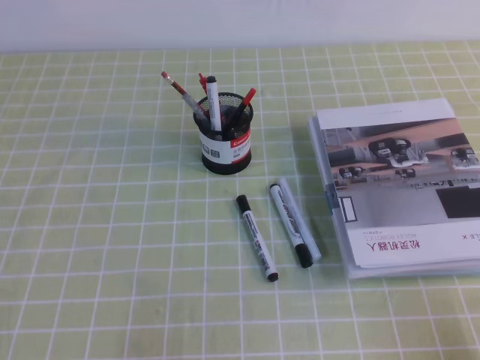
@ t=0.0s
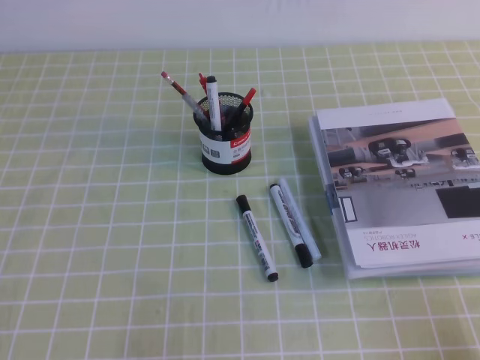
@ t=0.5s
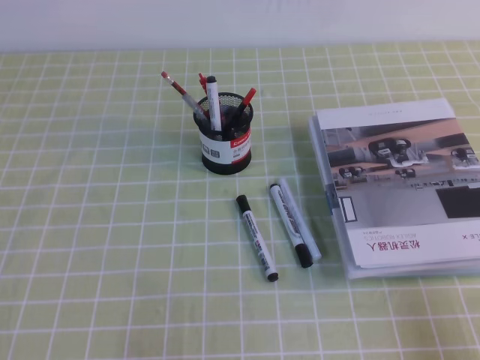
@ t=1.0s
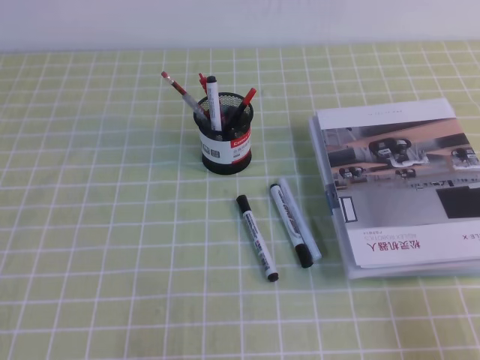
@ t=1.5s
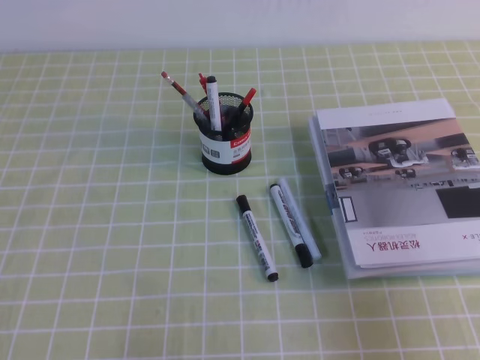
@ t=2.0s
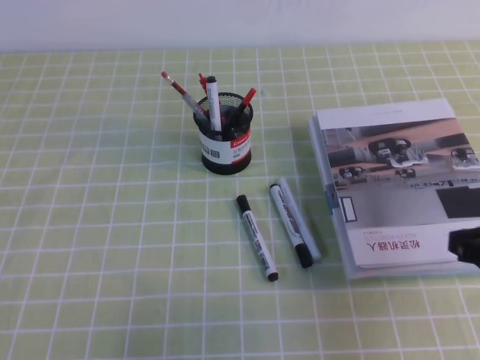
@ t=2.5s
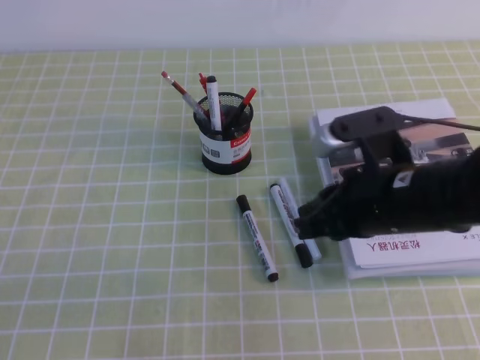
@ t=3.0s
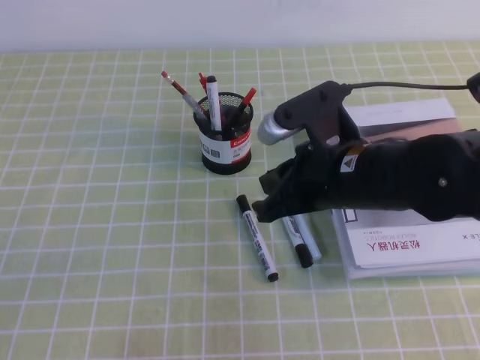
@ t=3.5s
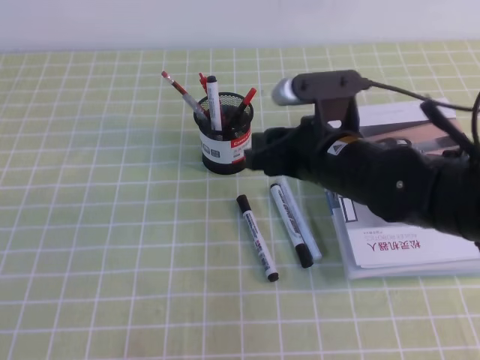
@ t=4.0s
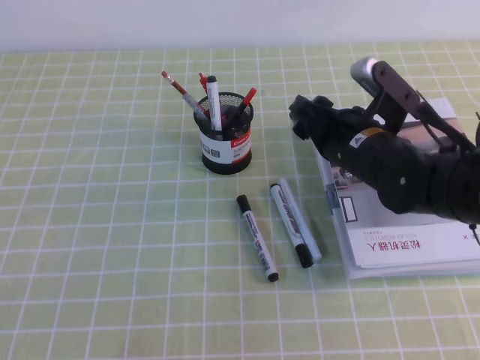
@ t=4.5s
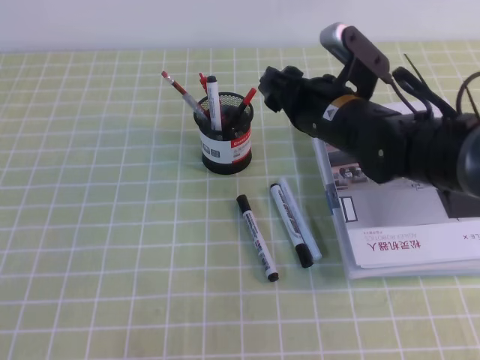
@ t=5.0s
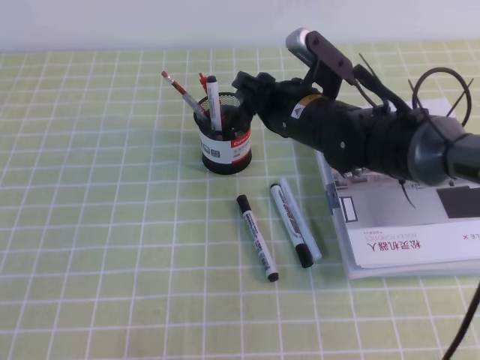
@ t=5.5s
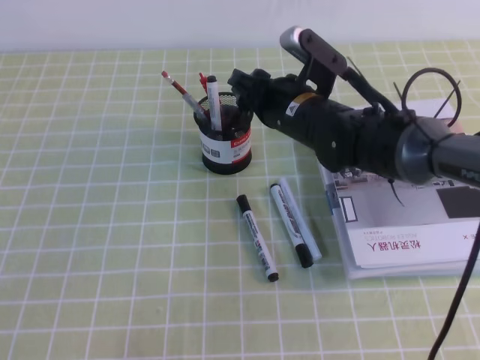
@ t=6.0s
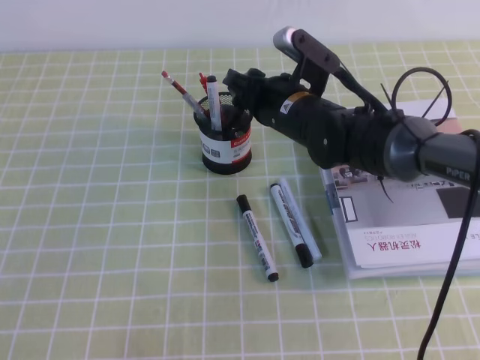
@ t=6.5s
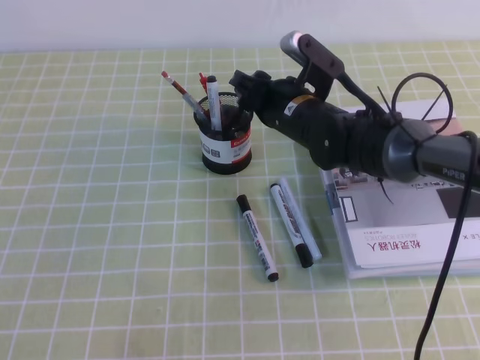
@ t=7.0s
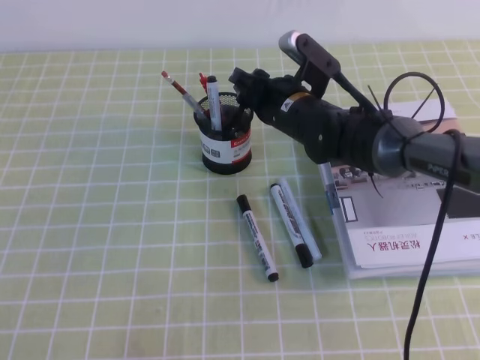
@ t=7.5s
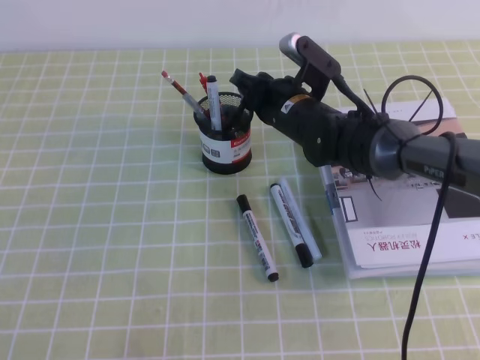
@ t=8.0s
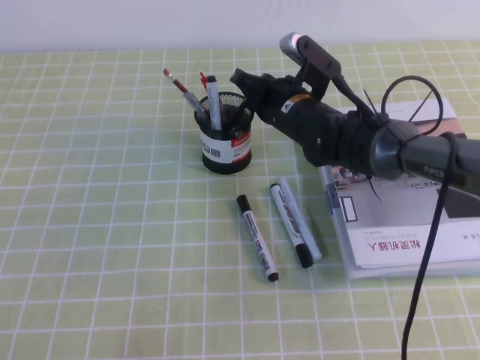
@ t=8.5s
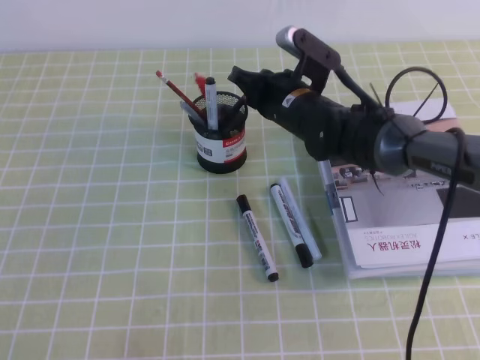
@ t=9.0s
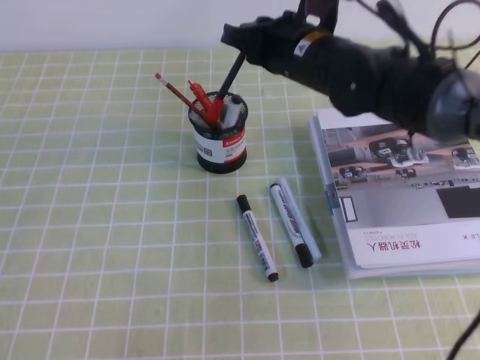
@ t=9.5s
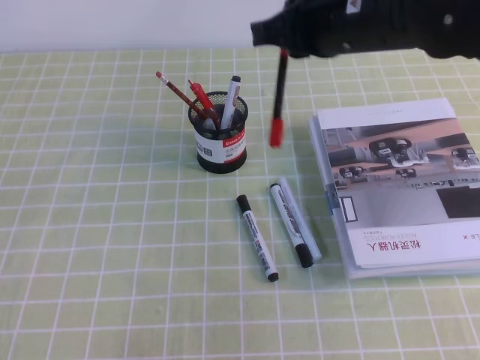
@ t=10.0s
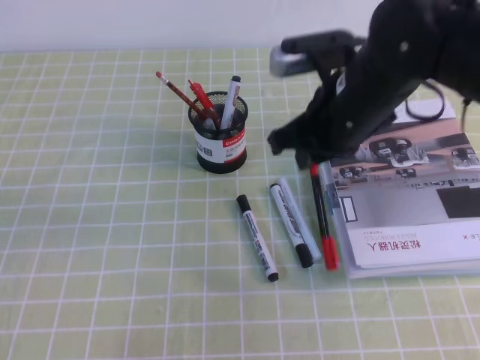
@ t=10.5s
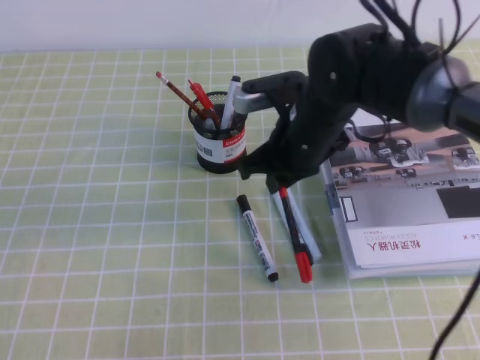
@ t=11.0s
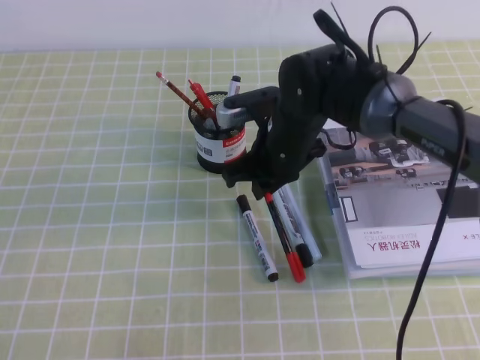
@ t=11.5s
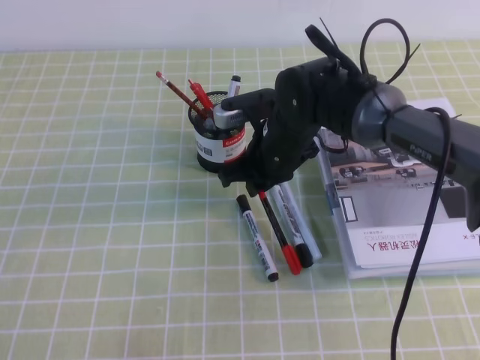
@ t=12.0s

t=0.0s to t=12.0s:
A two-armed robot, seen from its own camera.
t=0.0s to t=2.0s: The right gripper moves upward, some 10 cm.
t=2.0s to t=4.0s: The right gripper travels to the left and forward by roughly 30 cm, and opens its fingers.
t=4.0s to t=6.0s: The right gripper moves forward, some 10 cm.
t=6.0s to t=8.0s: The grippers stay close to where they were, moving slightly.
t=8.0s to t=10.0s: The right gripper shifts roughly 20 cm upward and backward, and closes its fingers.
t=10.0s to t=12.0s: The right gripper is displaced downward by some 15 cm.

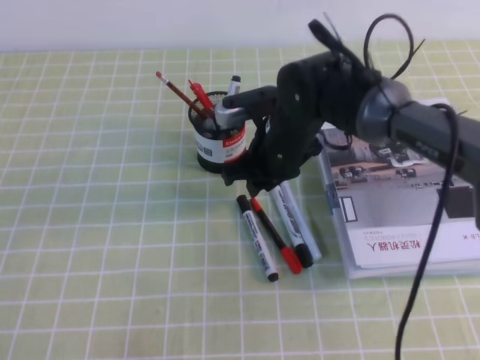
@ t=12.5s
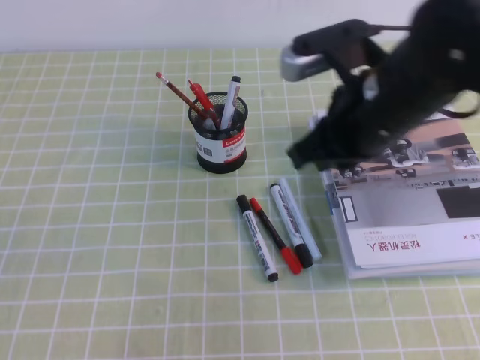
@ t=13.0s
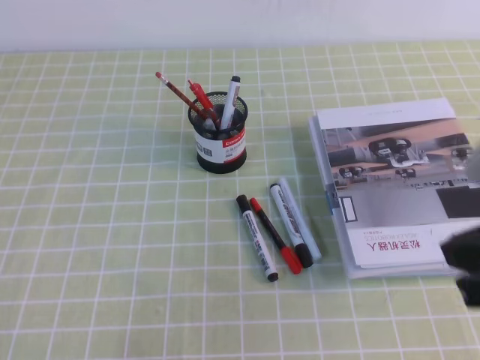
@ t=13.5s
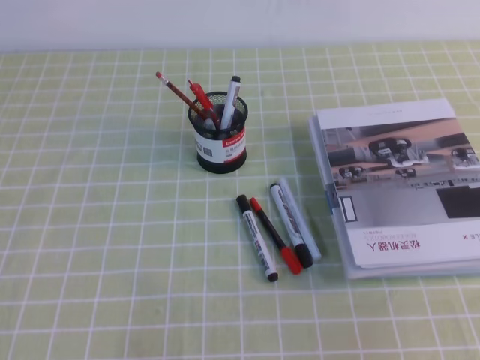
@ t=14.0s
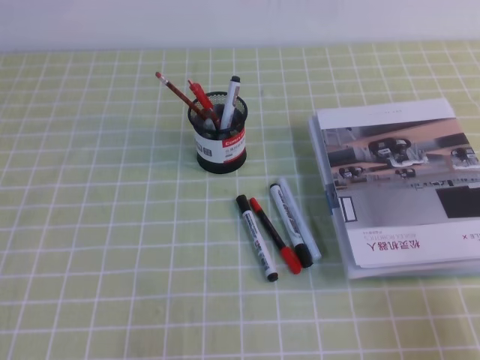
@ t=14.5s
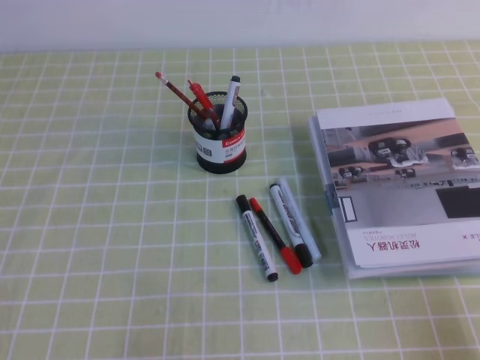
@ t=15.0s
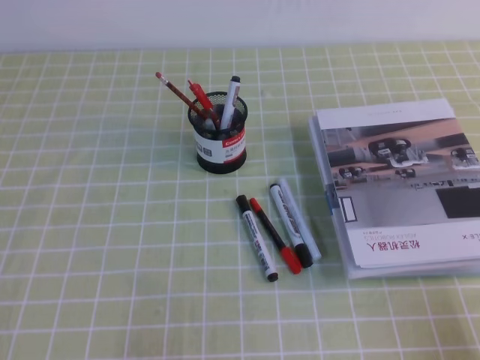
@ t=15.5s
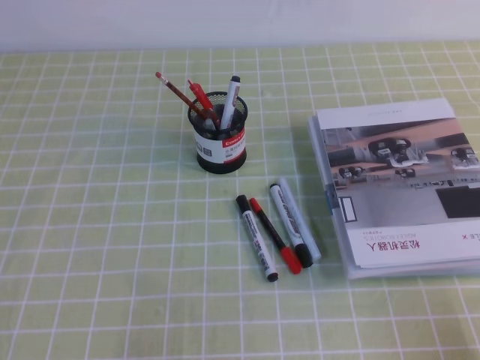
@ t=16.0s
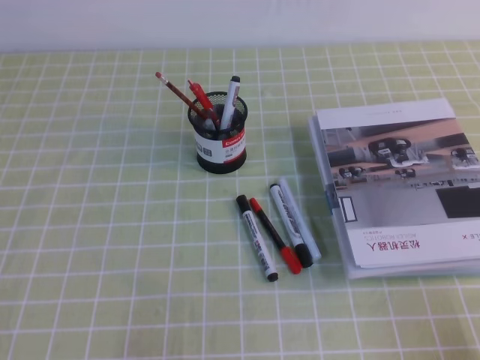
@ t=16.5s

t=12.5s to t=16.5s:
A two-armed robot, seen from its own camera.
Step, t=12.5s to t=16.5s: Pick up the pen from the pen holder.
t=12.5s to t=14.5s: The right gripper shifts about 40 cm backward and to the right, and closes its fingers.

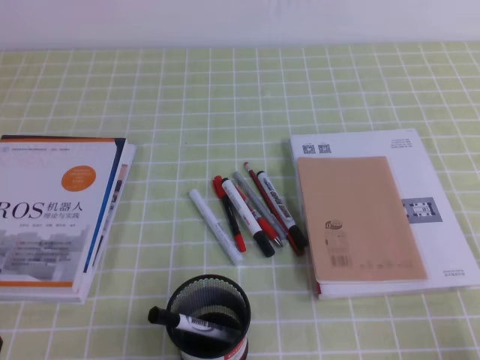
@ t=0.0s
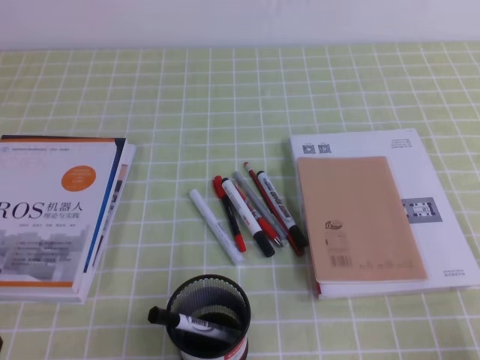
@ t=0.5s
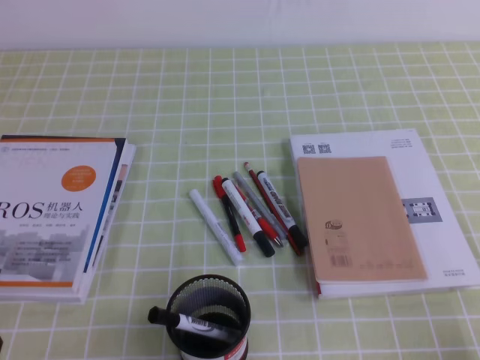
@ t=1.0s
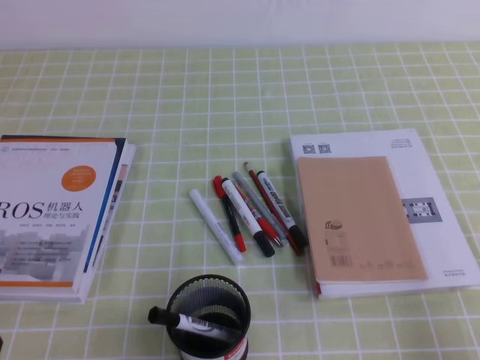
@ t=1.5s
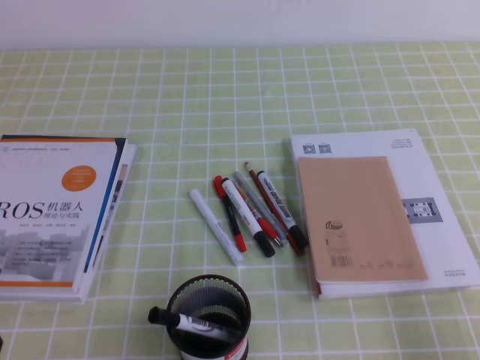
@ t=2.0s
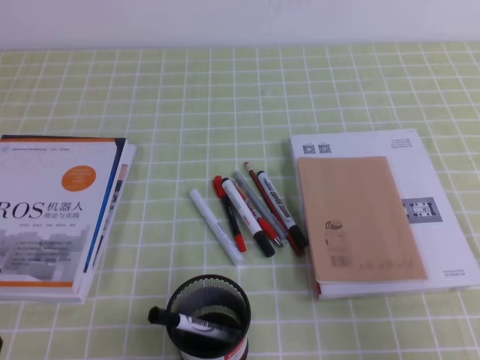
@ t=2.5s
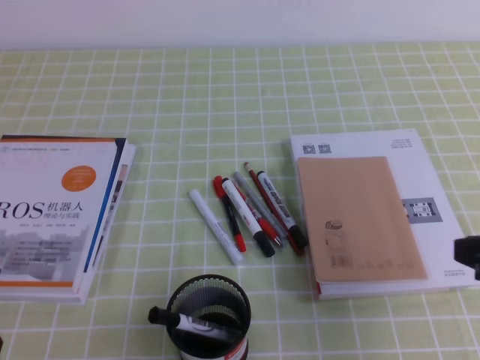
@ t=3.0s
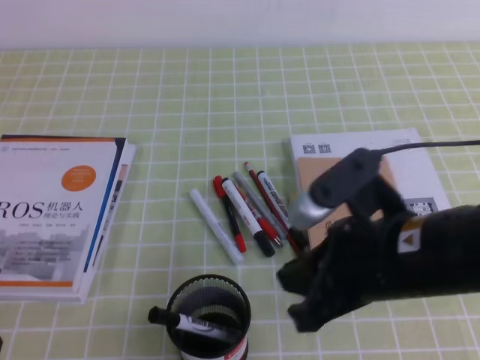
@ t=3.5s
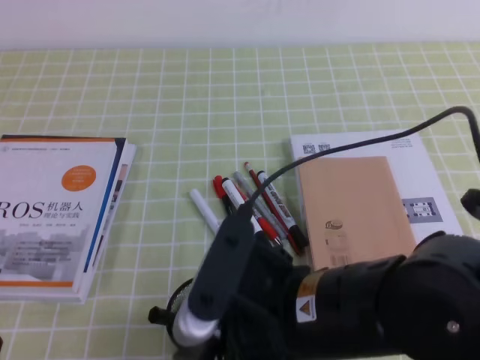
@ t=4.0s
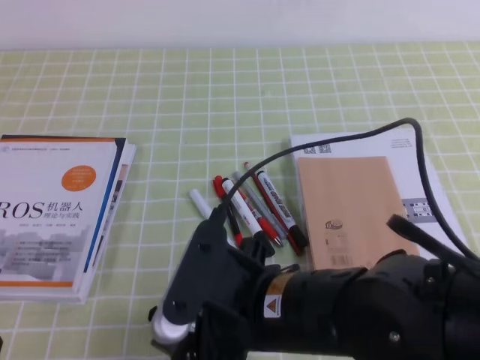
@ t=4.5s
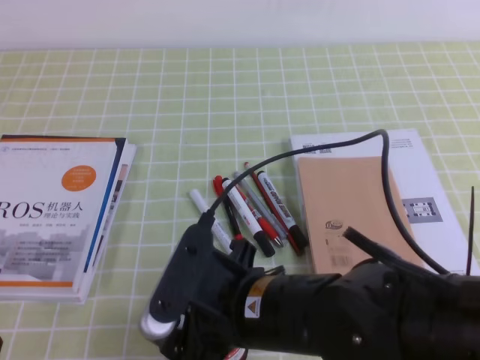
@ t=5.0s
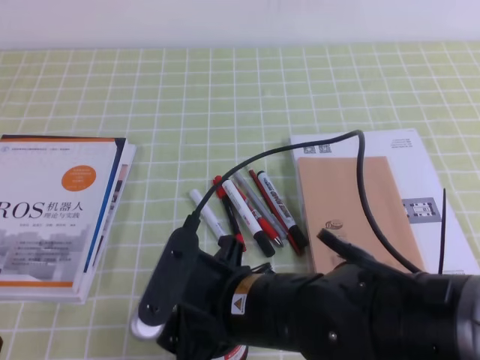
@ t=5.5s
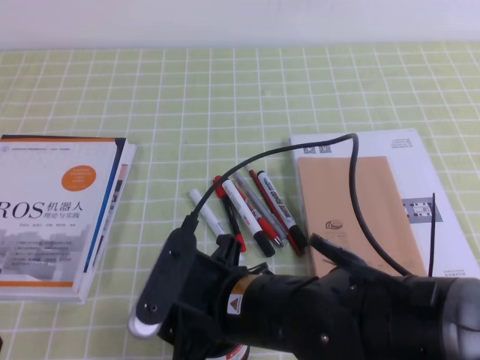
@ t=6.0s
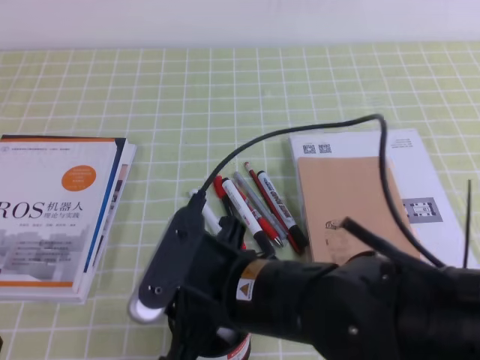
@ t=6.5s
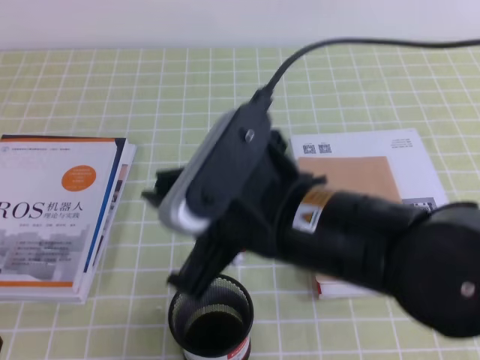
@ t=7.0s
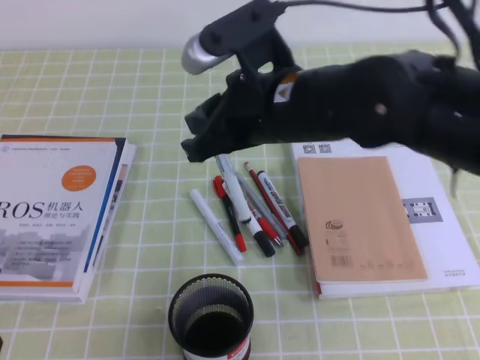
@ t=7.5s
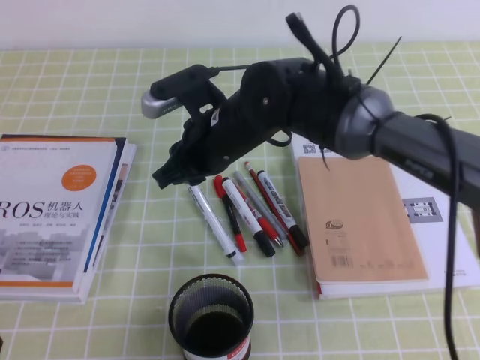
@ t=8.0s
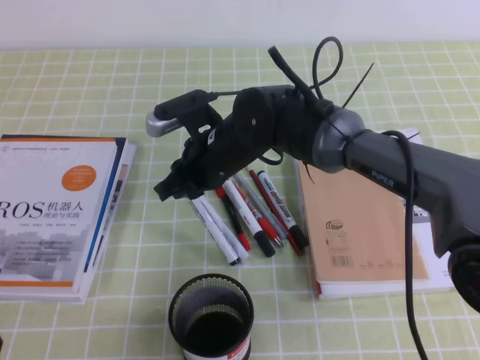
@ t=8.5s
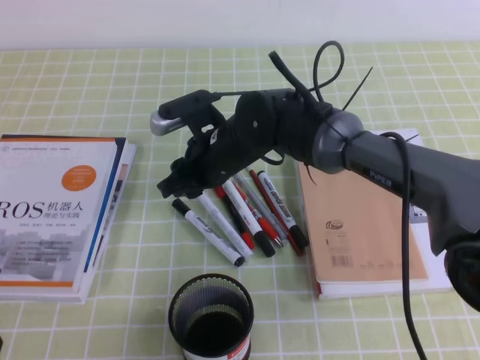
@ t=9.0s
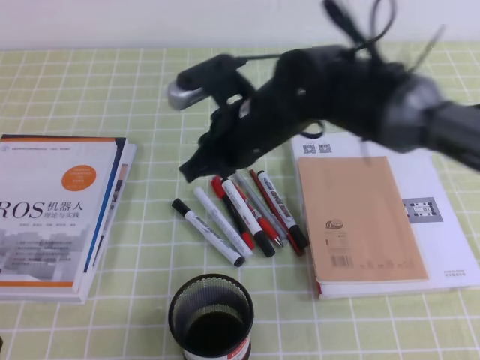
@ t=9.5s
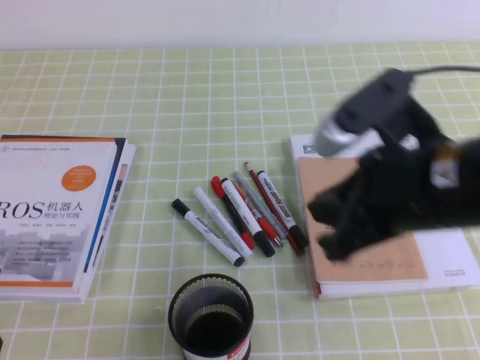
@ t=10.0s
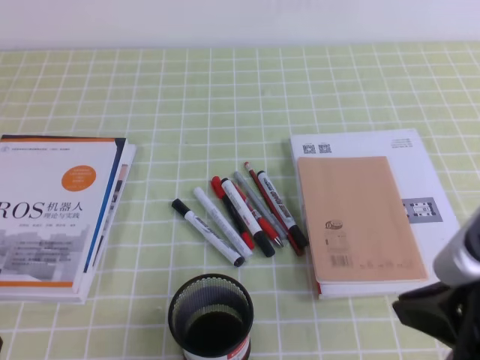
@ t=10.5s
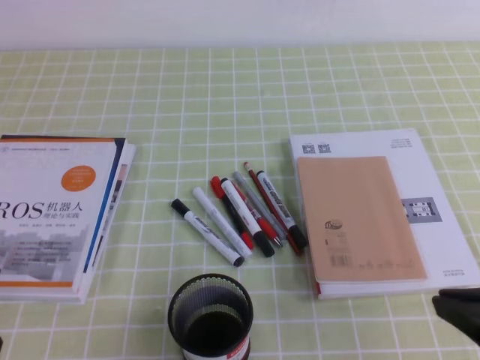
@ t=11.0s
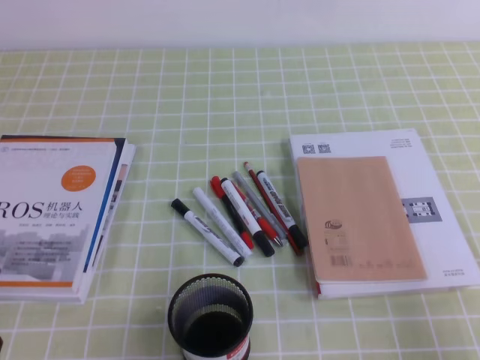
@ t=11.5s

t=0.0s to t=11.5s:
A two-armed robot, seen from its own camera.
t=2.0s to t=4.0s: The right gripper goes some 25 cm to the left, and opens its fingers.
t=4.0s to t=6.0s: The right gripper is displaced to the left and downward by approximately 10 cm, and opens, then closes again.
t=6.0s to t=7.5s: The right gripper heads upward and forward, covering about 15 cm, and closes its fingers.
t=7.5s to t=9.5s: The right gripper is displaced forward and downward by some 10 cm.
t=9.5s to t=11.5s: The right gripper heads to the right and backward, covering roughly 40 cm.
